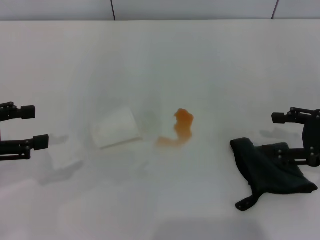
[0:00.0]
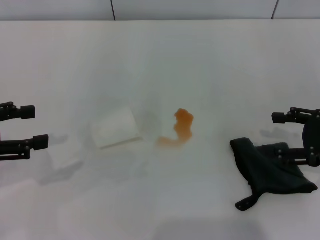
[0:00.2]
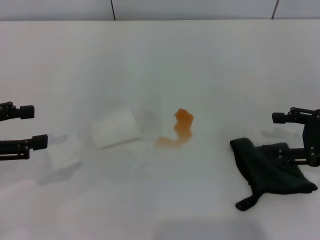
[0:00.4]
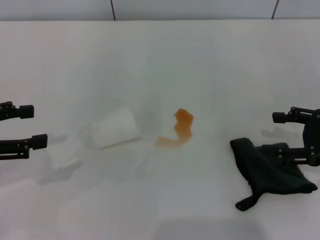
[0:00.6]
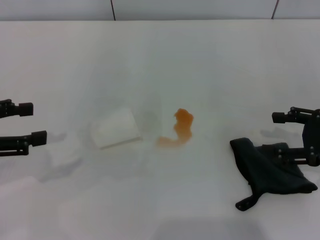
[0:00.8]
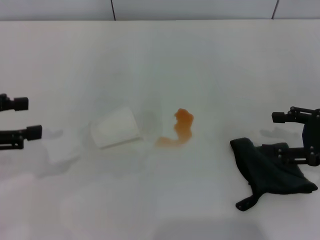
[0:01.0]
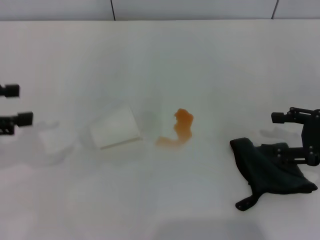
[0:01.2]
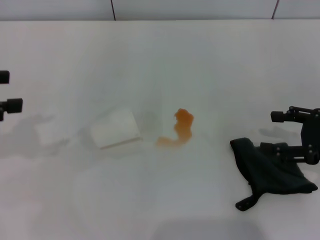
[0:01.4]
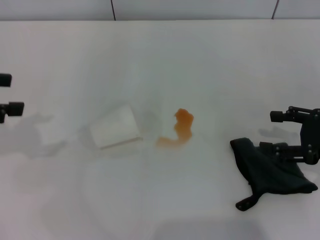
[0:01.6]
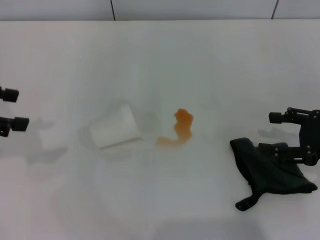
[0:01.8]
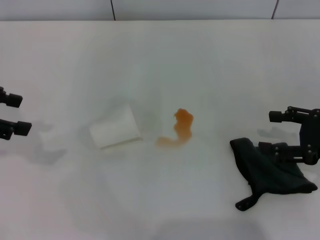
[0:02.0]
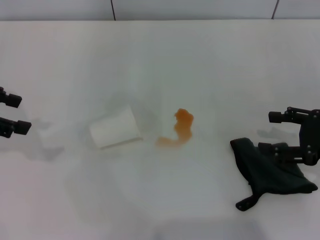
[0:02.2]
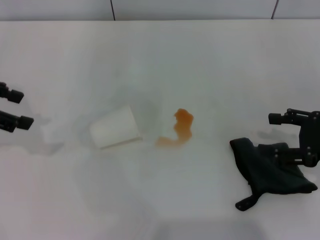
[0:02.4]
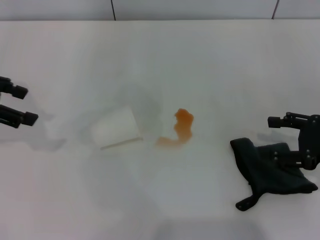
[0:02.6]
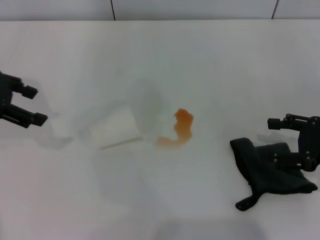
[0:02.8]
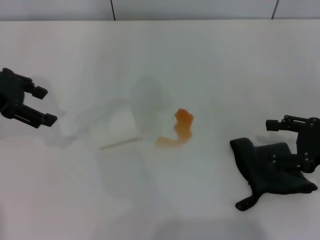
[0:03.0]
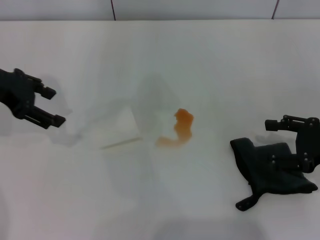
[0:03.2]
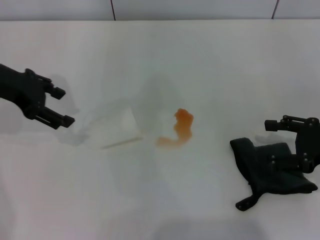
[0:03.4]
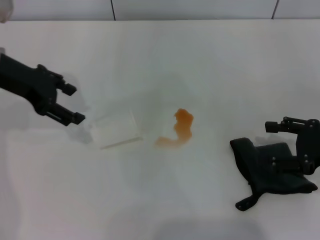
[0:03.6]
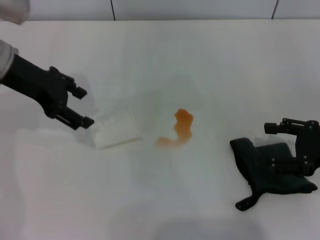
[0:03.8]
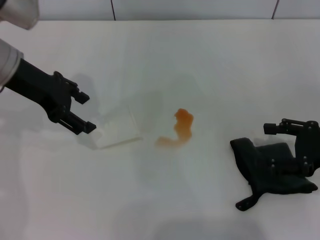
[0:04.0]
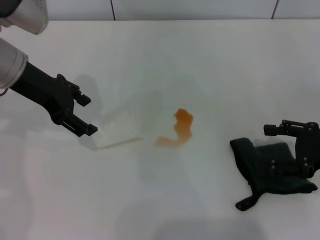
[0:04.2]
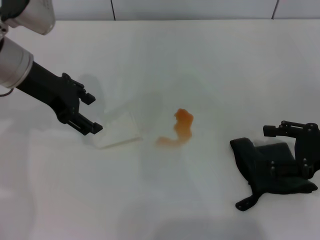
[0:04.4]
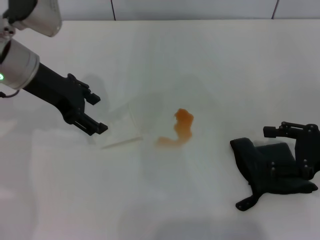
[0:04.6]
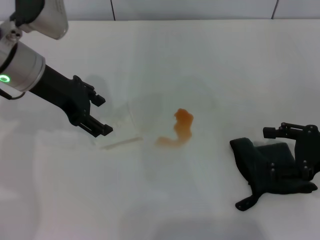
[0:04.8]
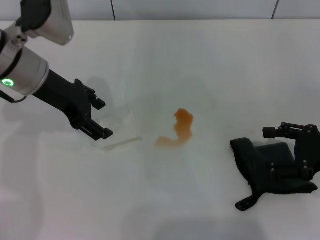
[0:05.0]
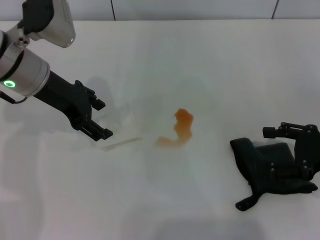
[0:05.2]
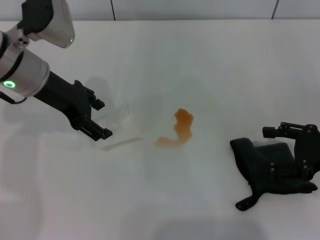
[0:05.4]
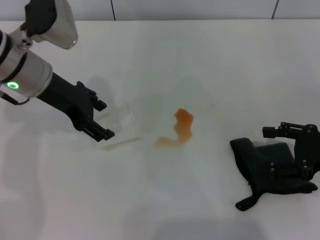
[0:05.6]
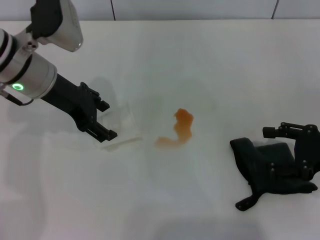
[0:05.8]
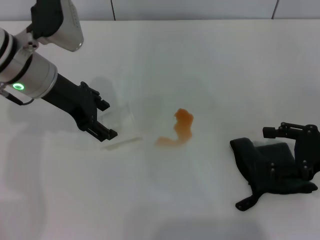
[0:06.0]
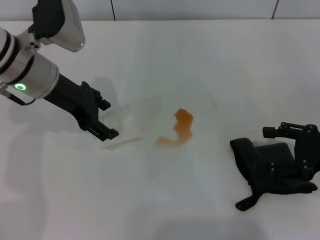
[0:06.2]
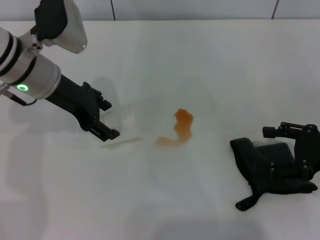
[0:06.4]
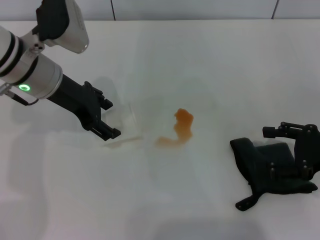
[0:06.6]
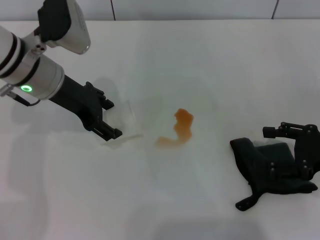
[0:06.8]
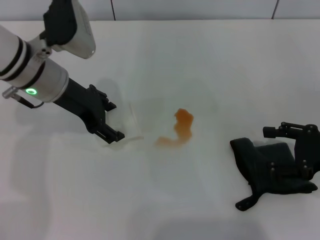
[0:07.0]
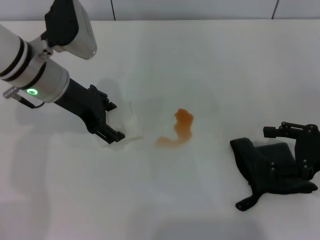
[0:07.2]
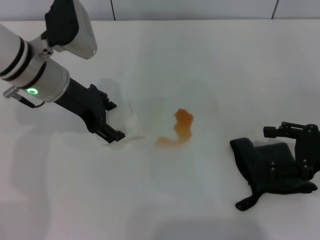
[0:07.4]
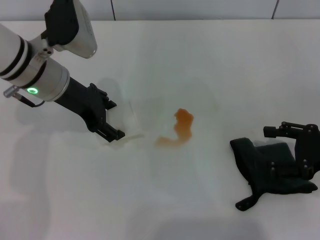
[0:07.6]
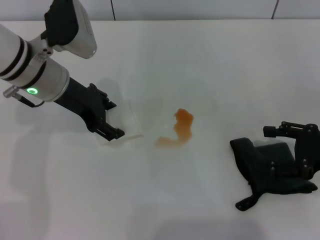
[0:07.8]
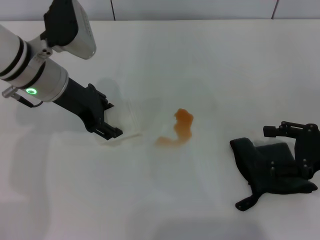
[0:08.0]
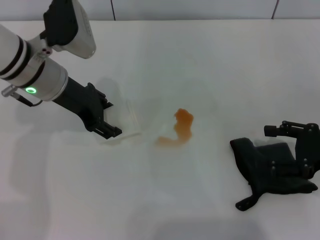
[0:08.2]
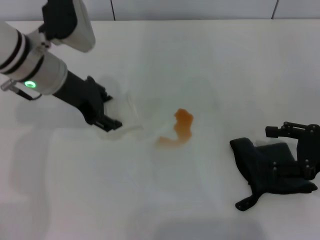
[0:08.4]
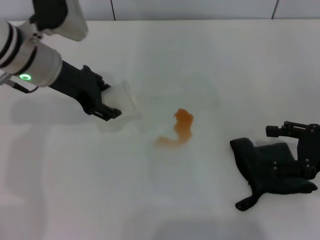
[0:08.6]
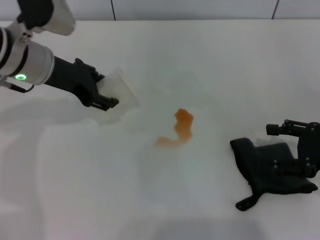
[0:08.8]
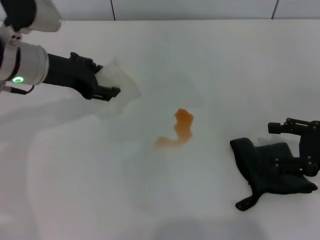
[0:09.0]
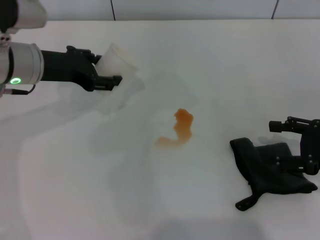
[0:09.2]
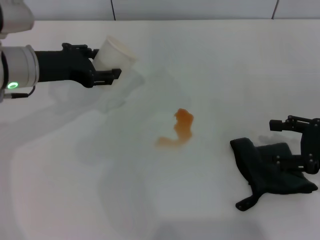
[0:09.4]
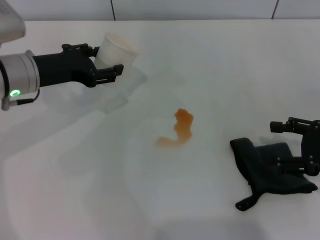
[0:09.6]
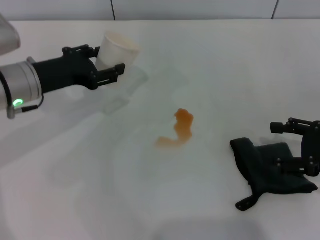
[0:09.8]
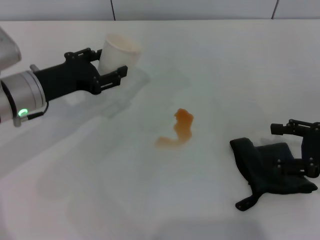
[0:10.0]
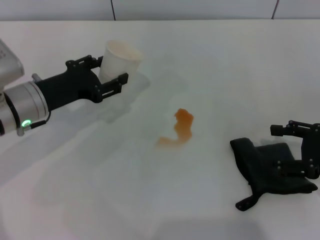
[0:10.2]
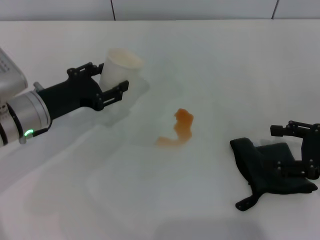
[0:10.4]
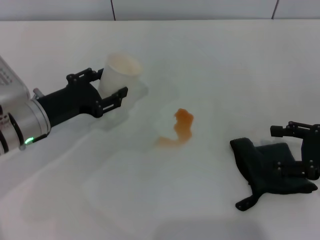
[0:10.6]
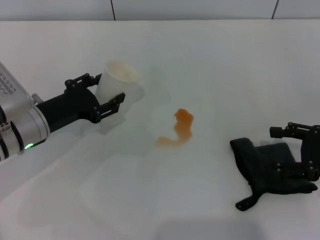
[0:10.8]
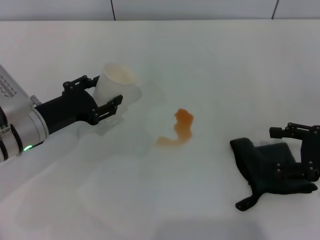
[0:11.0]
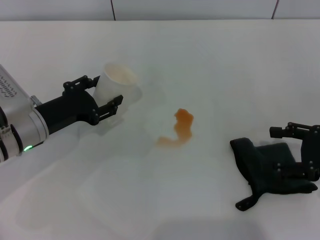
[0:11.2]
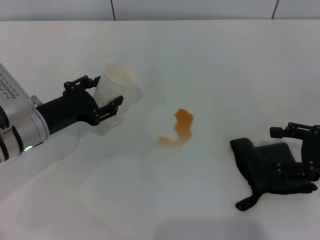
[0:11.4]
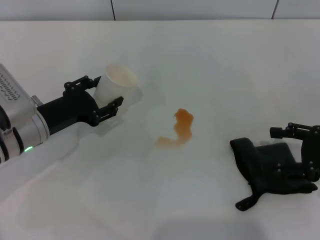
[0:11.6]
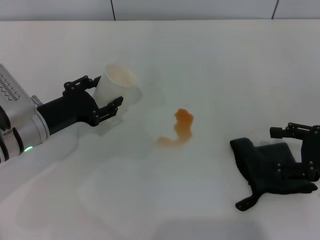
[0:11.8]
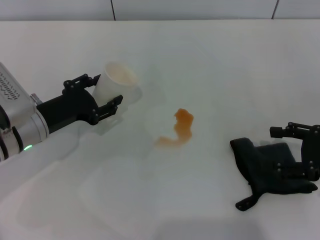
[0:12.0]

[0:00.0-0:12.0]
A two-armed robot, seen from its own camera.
Step, 0:00.0 to 0:07.8: Grasp the paper cup with the left gripper.
0:00.0 to 0:01.6: The left gripper goes some 5 cm upward.
0:01.6 to 0:03.0: The left gripper moves forward and to the right, about 10 cm.
0:03.0 to 0:04.4: The left gripper moves to the right, roughly 10 cm.
0:04.4 to 0:07.6: The grippers move only a little.
0:07.6 to 0:09.0: The left gripper closes.
0:09.0 to 0:10.4: The left gripper is displaced downward and backward by about 10 cm.
0:10.4 to 0:12.0: The grippers stay close to where they were, moving slightly.

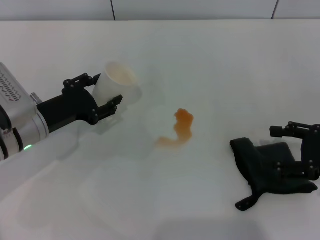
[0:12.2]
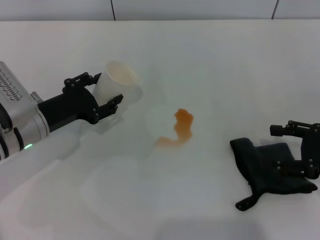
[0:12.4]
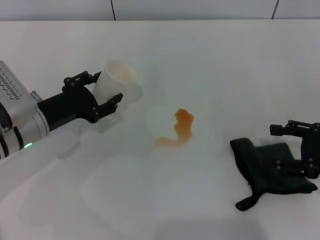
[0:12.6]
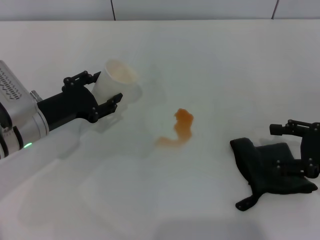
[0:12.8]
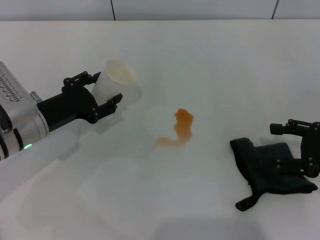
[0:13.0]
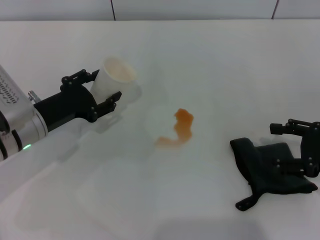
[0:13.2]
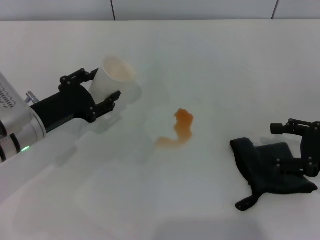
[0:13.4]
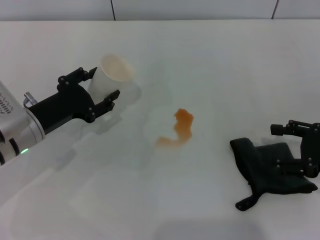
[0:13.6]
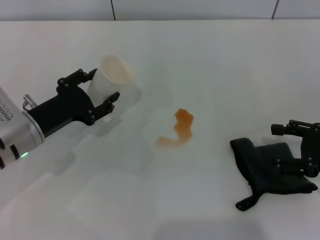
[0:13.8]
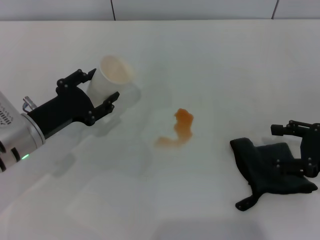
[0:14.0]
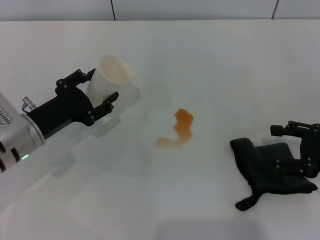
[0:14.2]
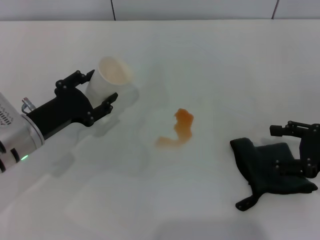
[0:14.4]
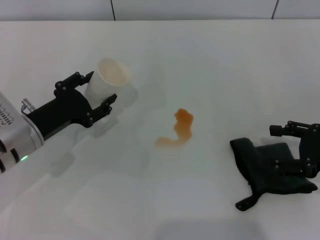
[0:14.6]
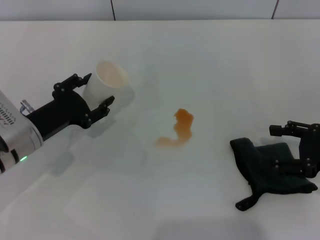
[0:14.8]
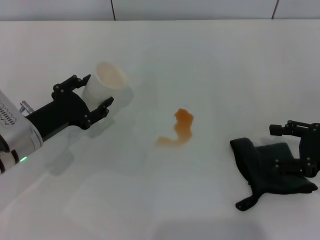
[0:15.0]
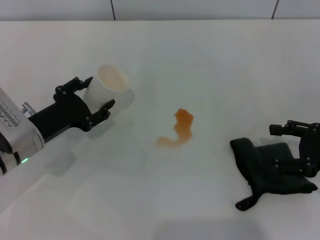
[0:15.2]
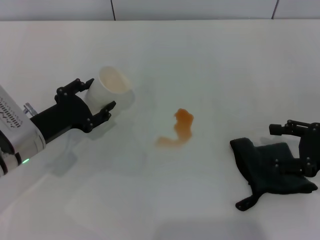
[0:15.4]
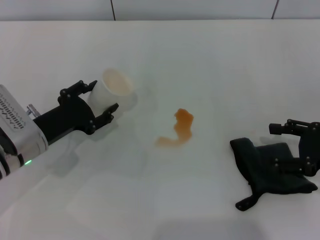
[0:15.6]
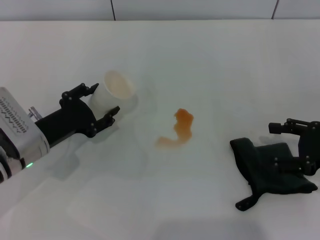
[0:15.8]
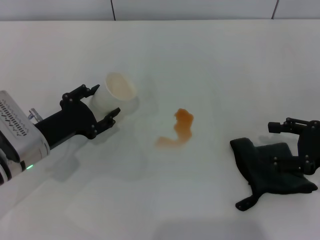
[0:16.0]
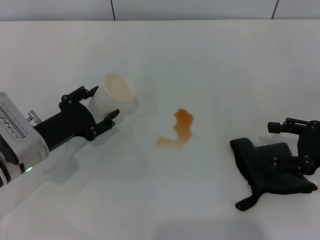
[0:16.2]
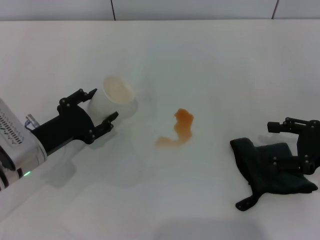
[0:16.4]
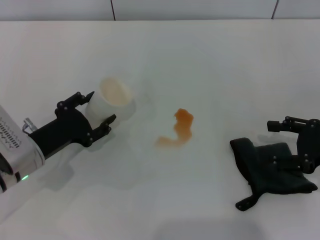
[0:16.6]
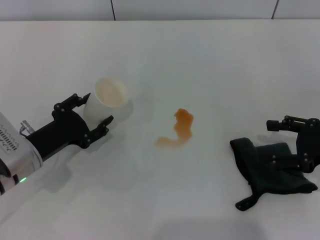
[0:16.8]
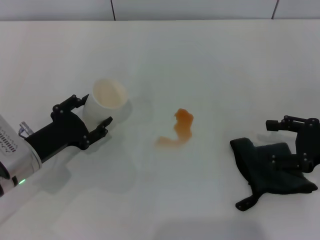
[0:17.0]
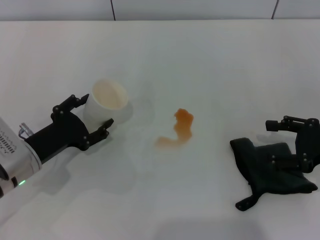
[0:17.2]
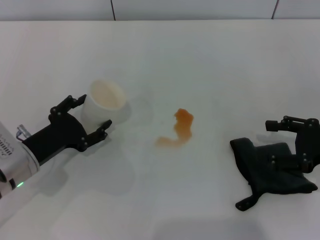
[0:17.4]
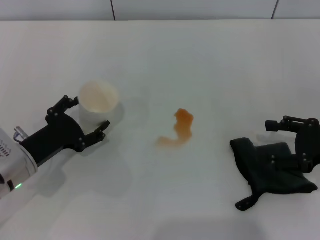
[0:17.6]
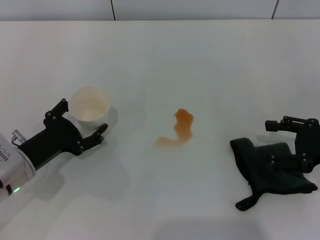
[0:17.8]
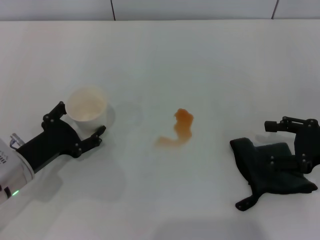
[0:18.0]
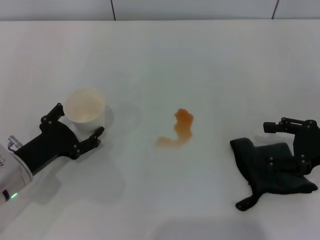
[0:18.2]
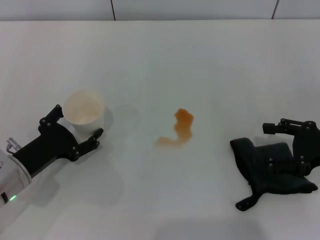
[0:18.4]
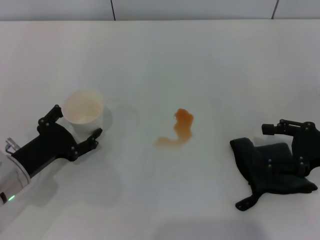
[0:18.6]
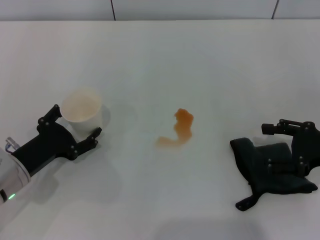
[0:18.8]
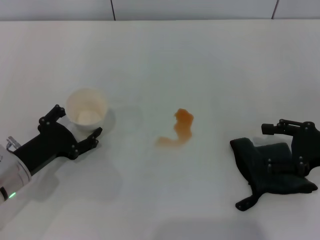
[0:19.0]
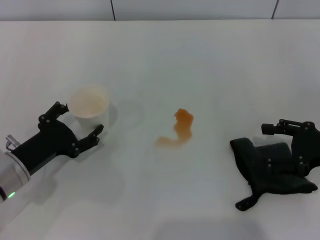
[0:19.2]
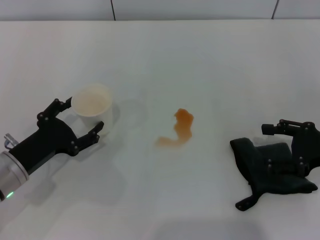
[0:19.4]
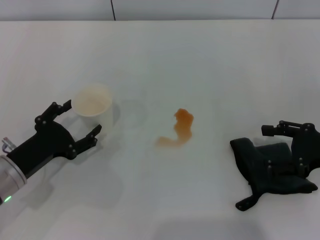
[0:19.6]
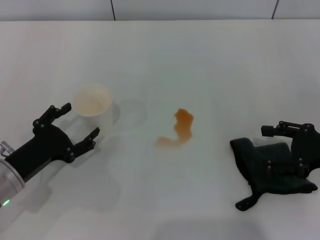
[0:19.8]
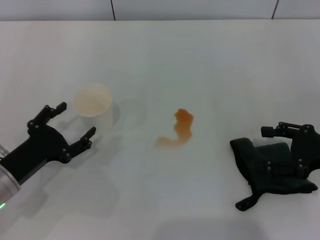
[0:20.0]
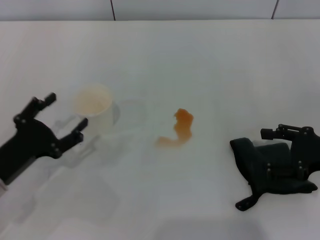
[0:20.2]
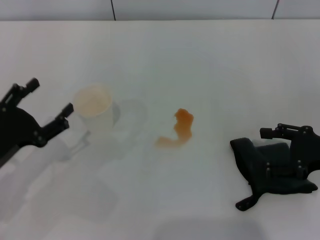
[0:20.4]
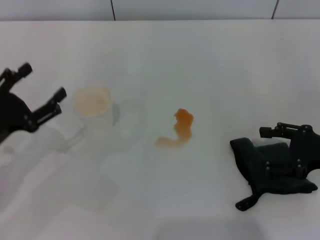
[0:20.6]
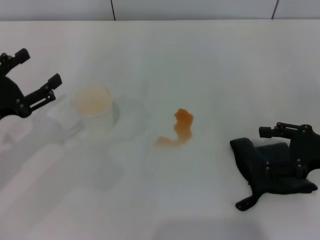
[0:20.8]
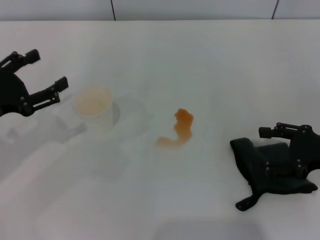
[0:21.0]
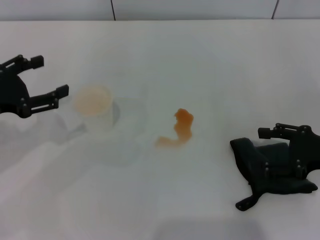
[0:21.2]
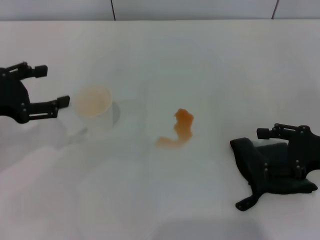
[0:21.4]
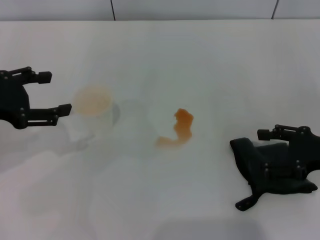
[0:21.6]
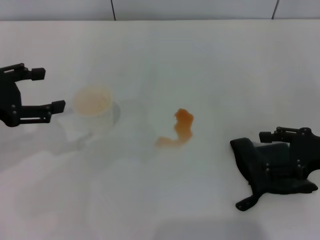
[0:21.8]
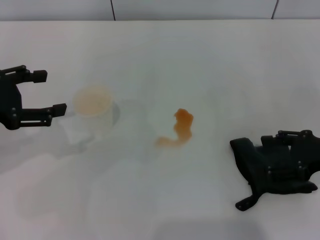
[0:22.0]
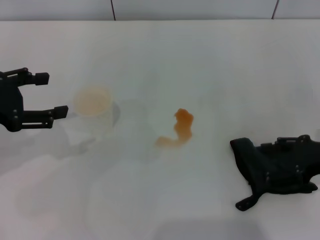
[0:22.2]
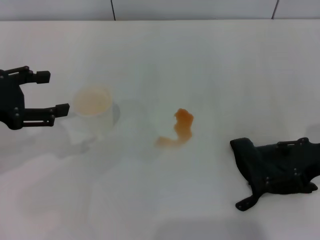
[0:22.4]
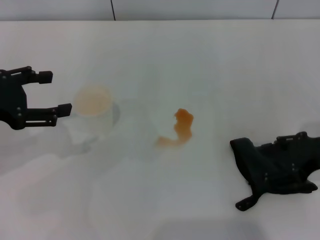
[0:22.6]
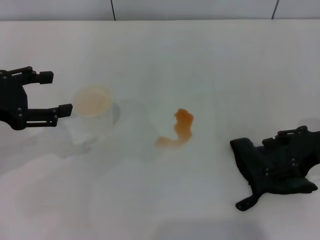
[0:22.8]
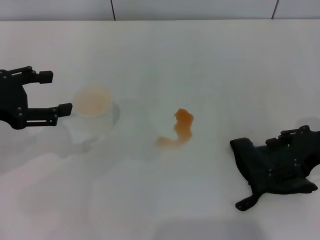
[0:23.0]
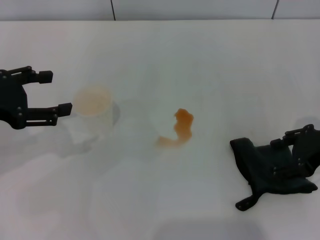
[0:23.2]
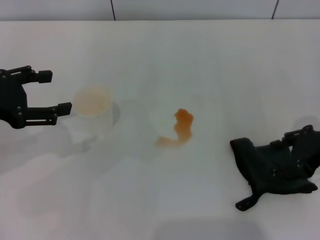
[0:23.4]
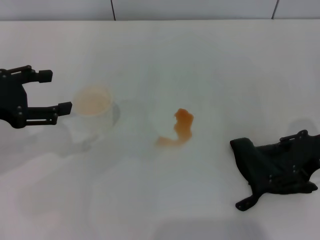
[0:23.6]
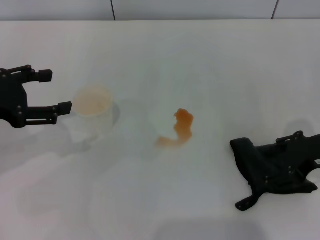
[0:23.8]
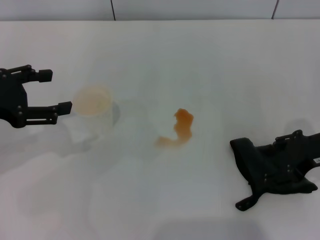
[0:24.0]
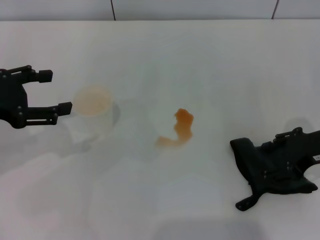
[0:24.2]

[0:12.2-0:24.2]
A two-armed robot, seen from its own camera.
Step, 0:12.2 to 0:20.0: Stand the paper cup upright with the left gripper.
0:12.2 to 0:13.8: There are only small adjustments of the grippers.
0:13.8 to 0:15.2: Both grippers stay put.
0:15.2 to 0:16.6: The grippers make only small movements.
0:16.6 to 0:18.2: The left gripper opens its fingers.
0:18.2 to 0:19.8: The grippers make only small movements.
0:19.8 to 0:21.2: The left gripper heads upward and to the left, covering approximately 15 cm.
0:22.6 to 0:24.2: There are only small adjustments of the grippers.
